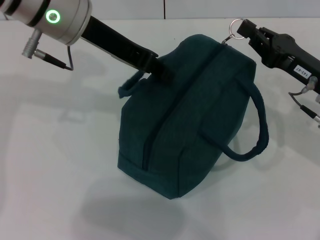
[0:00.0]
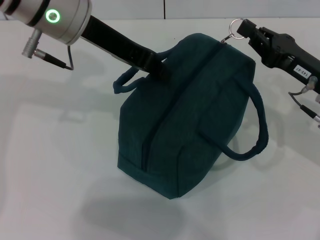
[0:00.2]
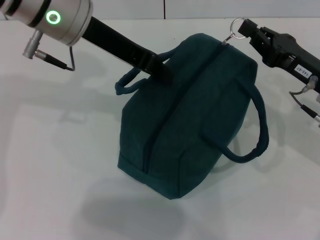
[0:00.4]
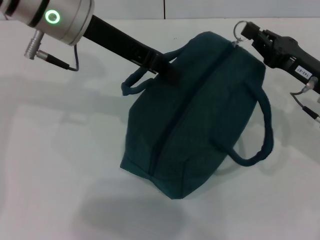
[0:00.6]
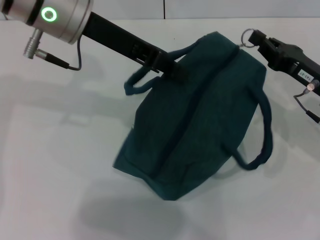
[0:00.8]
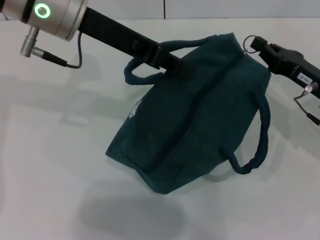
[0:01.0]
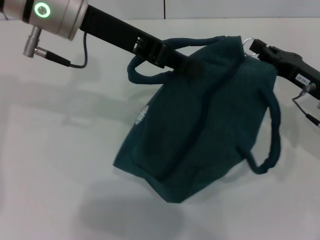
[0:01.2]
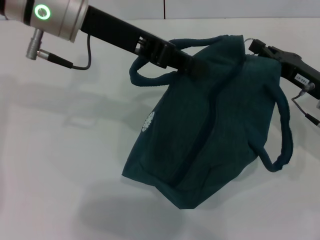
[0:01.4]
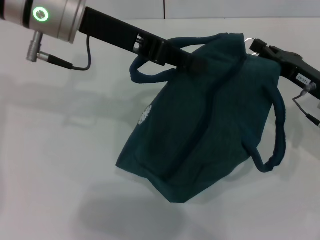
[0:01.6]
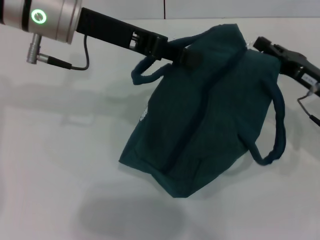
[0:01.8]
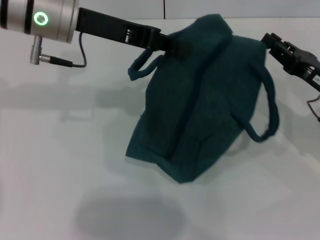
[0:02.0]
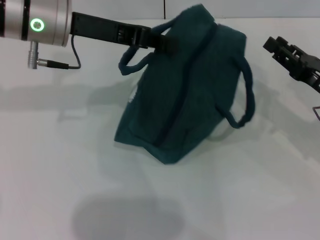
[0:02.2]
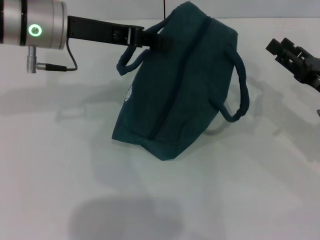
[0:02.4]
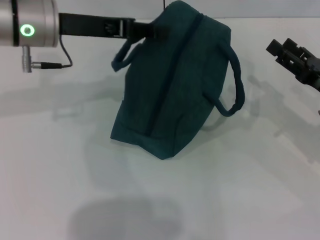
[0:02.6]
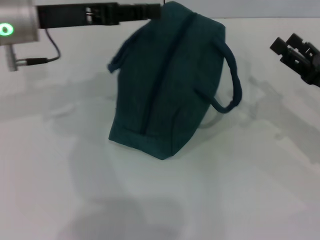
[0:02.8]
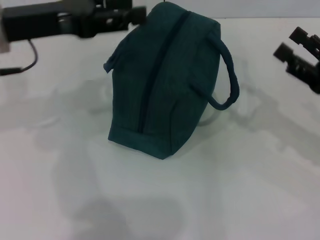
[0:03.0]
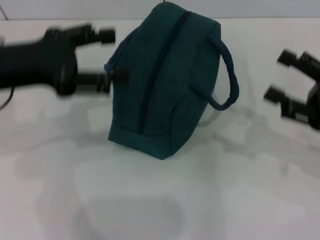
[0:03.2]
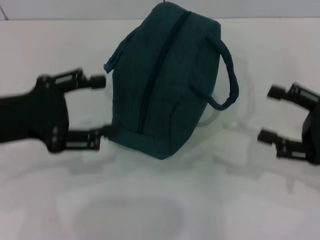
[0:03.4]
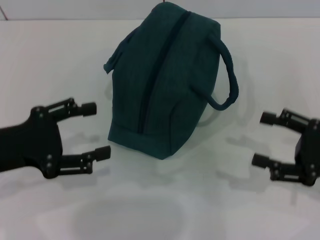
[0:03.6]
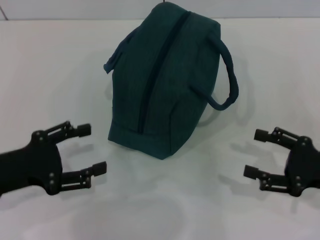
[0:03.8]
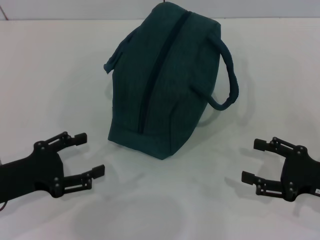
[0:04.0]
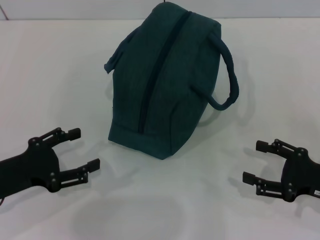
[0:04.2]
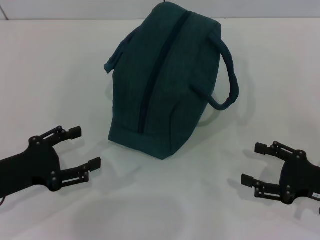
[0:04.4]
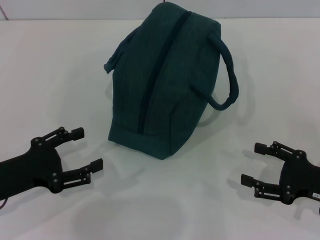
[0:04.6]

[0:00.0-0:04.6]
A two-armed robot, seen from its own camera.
Step, 0:00.0 to 0:02.0: Zip up the lunch bag with your right hand.
Step, 0:02.4 to 0:03.0: Hold the lunch bag with your left hand.
0:00.0 to 0:01.6: The left gripper closes its fingers.
0:01.6 to 0:03.0: The right gripper heads backward, covering about 5 cm, and opens, while the left gripper is displaced to the left by some 10 cm, and opens up.
0:03.0 to 0:04.6: The right gripper is displaced downward and backward by some 10 cm. The left gripper heads downward and backward, covering some 20 cm, and opens up.
